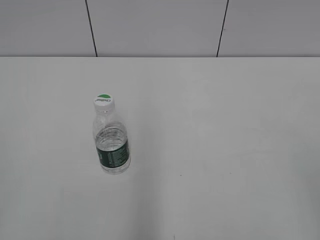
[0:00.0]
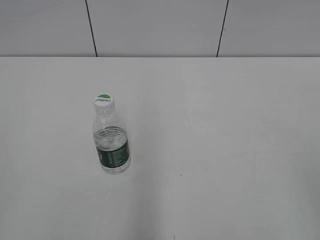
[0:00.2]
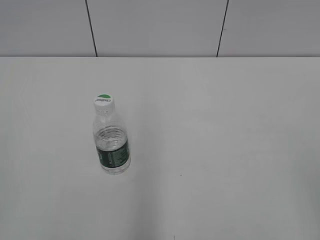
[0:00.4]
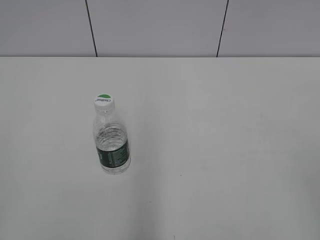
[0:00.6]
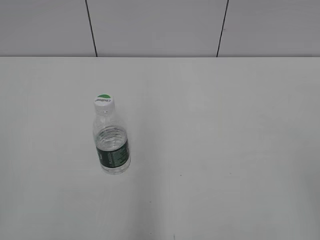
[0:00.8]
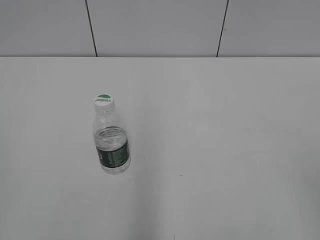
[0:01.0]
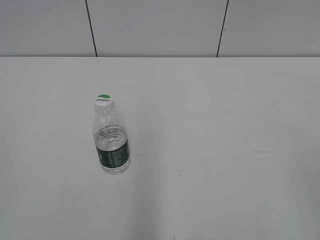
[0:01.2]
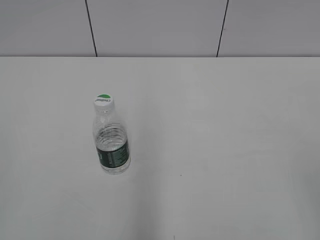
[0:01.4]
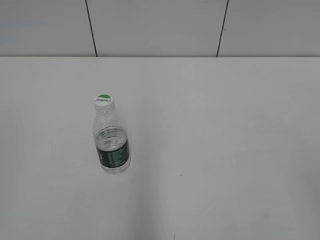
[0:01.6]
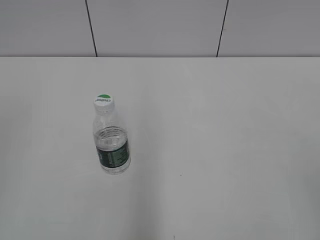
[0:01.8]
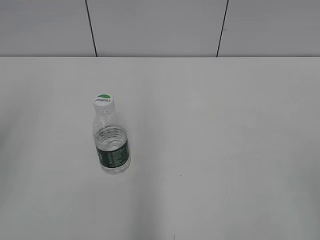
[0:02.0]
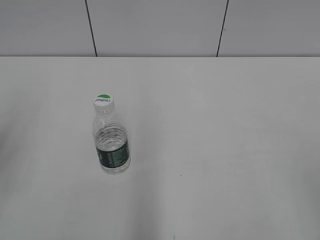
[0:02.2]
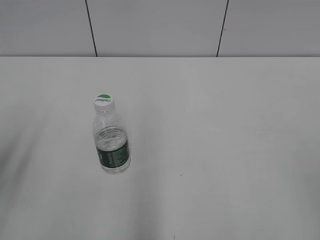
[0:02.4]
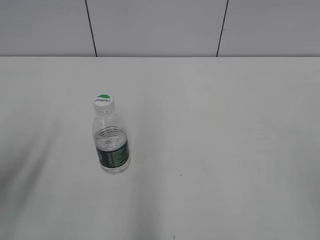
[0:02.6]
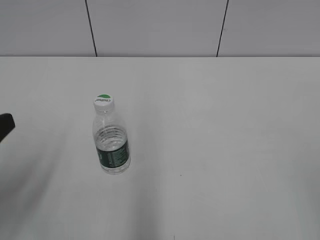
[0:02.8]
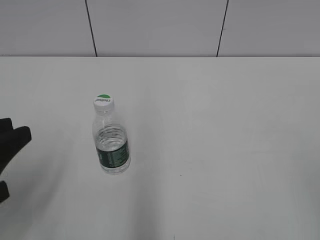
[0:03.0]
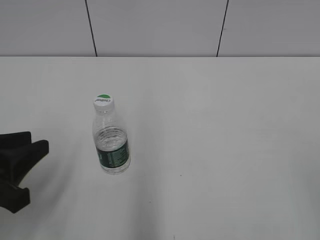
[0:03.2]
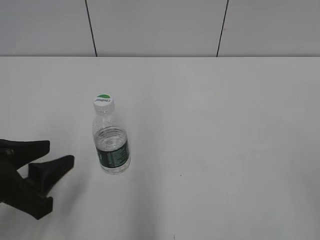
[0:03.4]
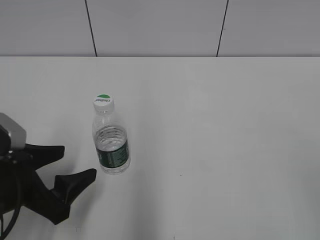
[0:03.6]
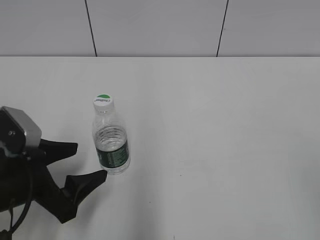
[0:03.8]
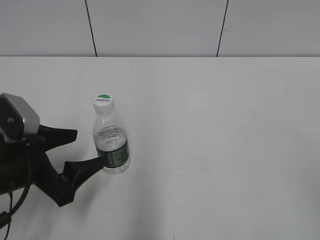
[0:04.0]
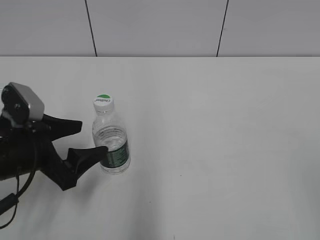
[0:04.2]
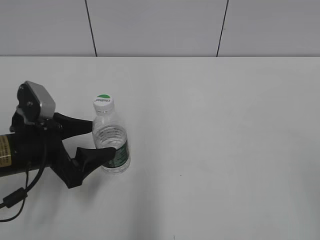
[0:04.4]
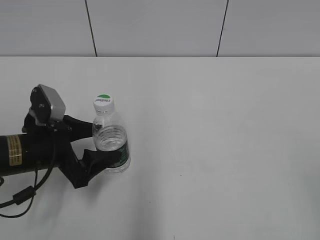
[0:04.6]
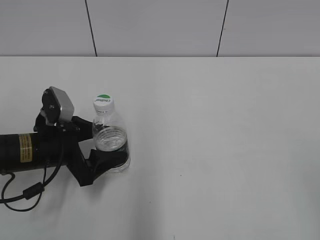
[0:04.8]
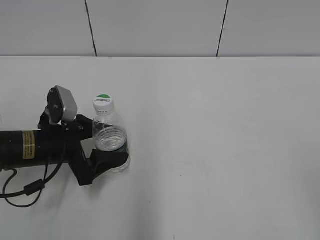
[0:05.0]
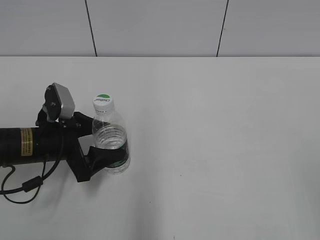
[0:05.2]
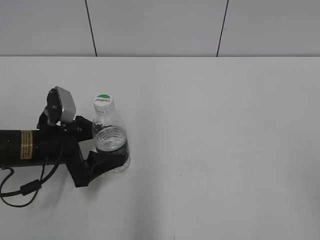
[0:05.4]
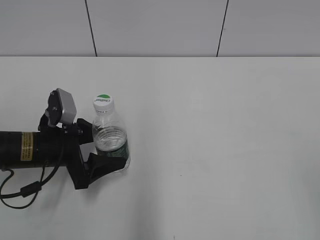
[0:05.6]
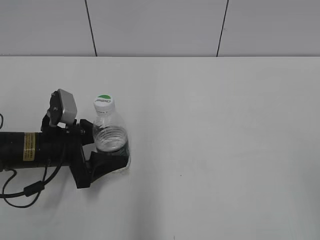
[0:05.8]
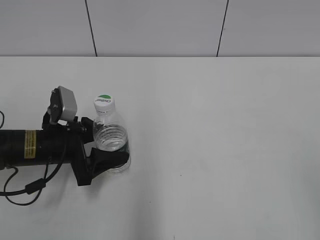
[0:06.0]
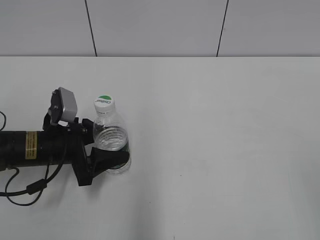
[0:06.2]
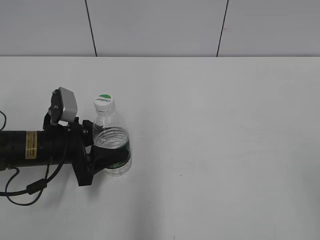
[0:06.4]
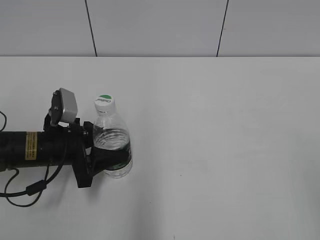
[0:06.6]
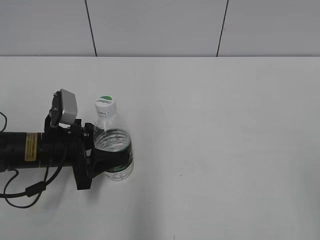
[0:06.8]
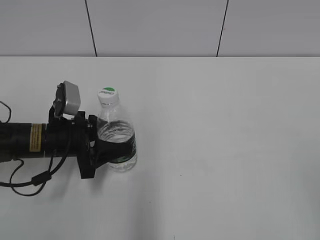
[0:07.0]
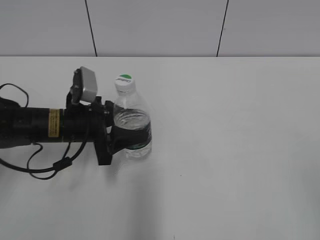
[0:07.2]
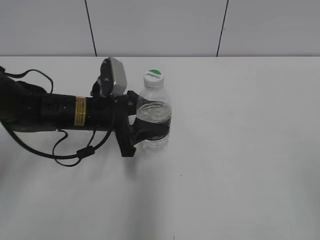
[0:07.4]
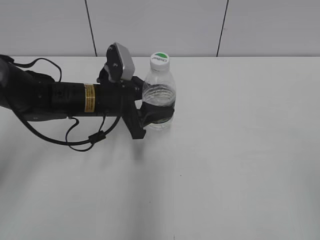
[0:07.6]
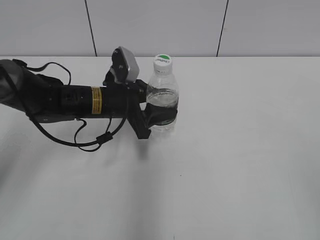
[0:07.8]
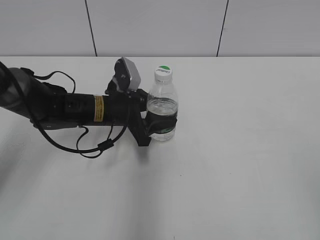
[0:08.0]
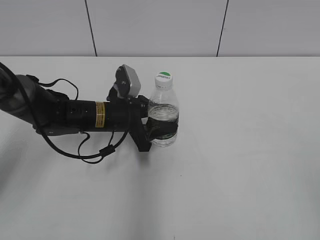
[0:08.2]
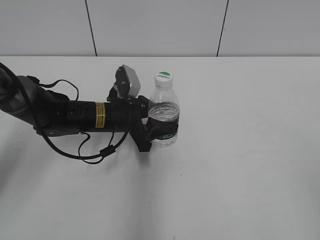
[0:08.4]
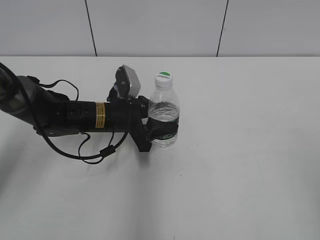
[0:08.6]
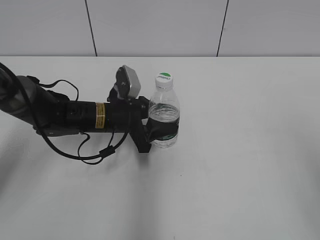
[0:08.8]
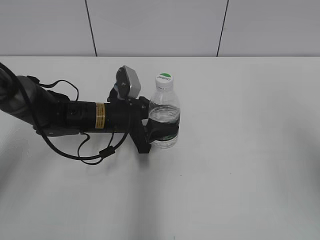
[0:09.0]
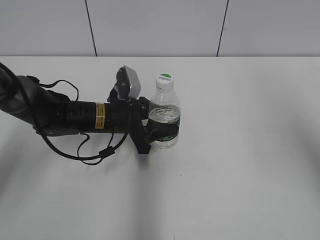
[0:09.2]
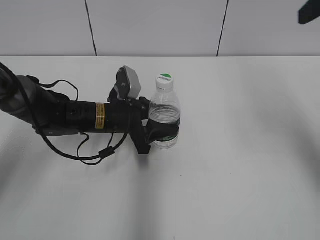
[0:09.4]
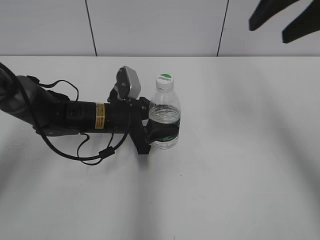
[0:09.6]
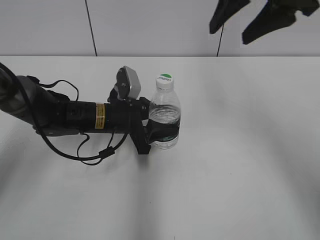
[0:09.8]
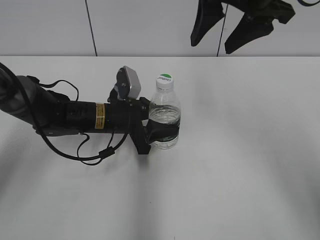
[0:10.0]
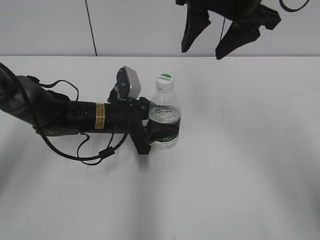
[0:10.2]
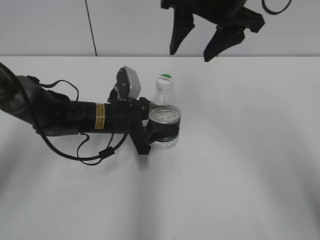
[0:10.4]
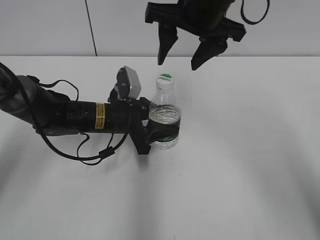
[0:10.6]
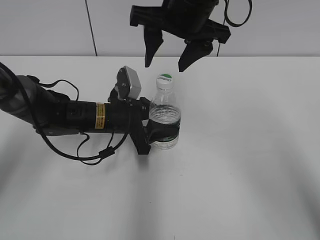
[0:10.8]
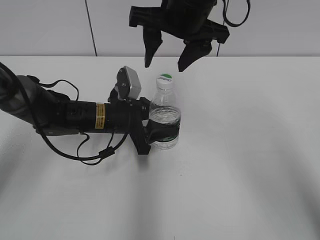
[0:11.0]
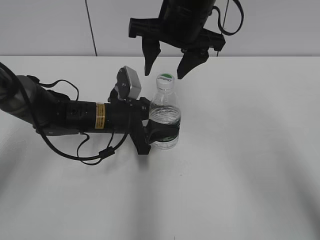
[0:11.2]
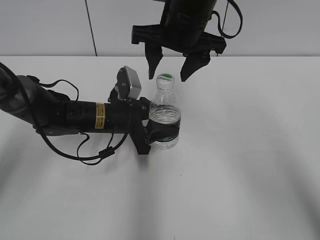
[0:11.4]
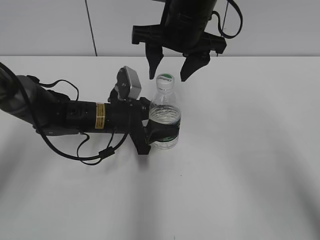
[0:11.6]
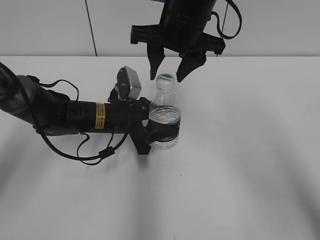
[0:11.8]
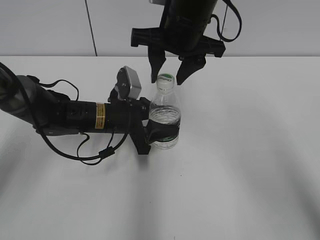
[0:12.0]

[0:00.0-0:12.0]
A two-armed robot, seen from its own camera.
Step, 0:00.0 to 0:06.4: Grasp the bottle and move it to the center of the table with the left gripper.
Step, 0:06.8 to 0:08.6: Lift the bottle and move it to the center of the table with the left gripper.
0:01.6 to 0:03.0: The left gripper moves downward, forward and to the right, some 20 cm.
0:03.0 to 0:04.4: The left gripper shifts roughly 15 cm forward and downward, and opens up.
0:04.4 to 0:06.0: The left gripper ends up approximately 5 cm from where it was.
0:06.0 to 0:07.6: The left gripper moves to the right and forward, approximately 10 cm, and closes up.
0:07.6 to 0:09.0: The left gripper moves approximately 5 cm, while the right gripper moves forward and upward, some 15 cm.
0:09.0 to 0:10.4: The right gripper heads forward and to the left, covering approximately 30 cm.
0:10.4 to 0:12.0: The right gripper heads downward, covering some 5 cm, and closes.

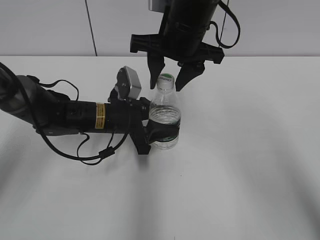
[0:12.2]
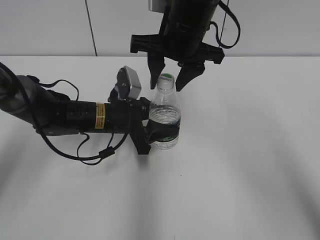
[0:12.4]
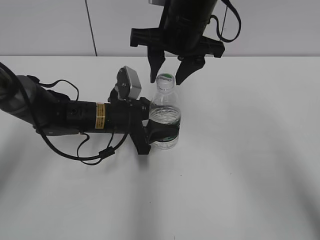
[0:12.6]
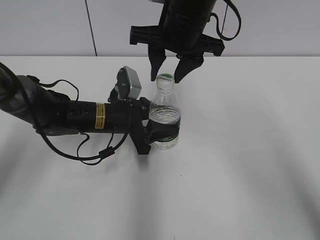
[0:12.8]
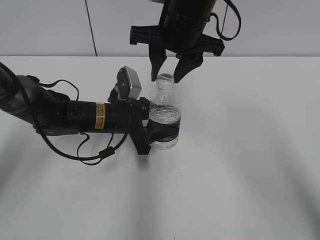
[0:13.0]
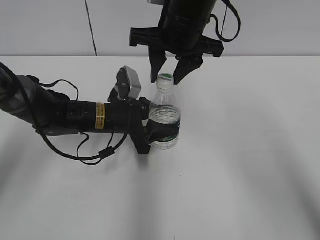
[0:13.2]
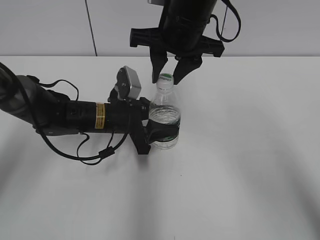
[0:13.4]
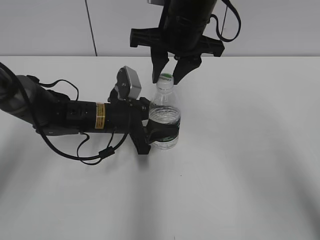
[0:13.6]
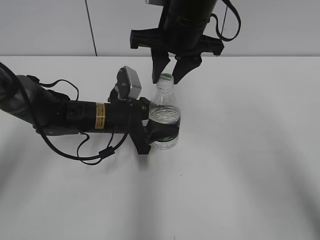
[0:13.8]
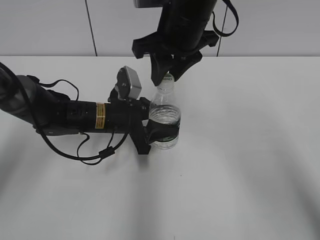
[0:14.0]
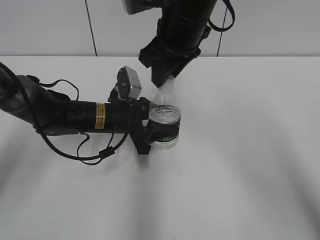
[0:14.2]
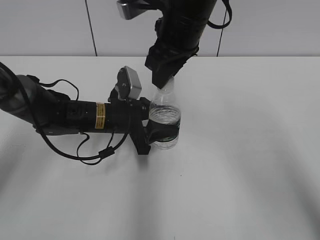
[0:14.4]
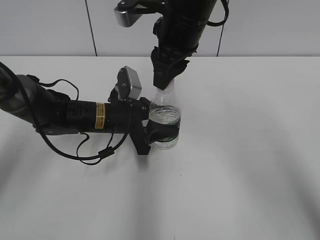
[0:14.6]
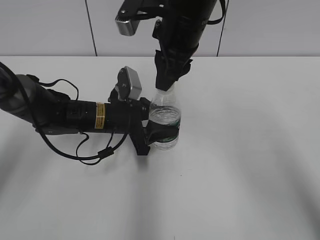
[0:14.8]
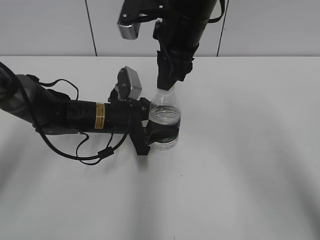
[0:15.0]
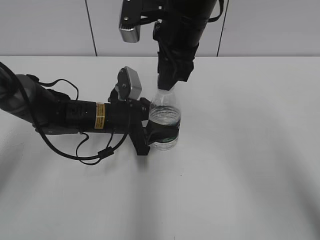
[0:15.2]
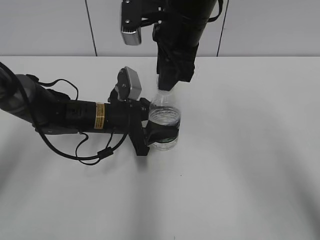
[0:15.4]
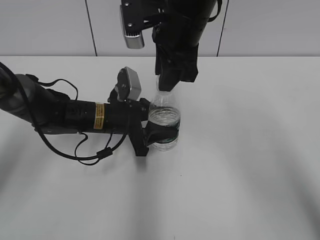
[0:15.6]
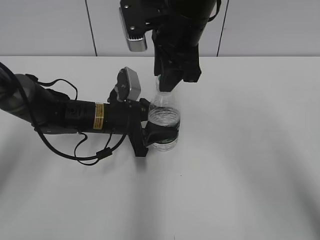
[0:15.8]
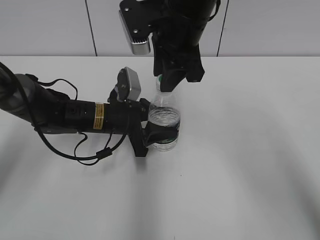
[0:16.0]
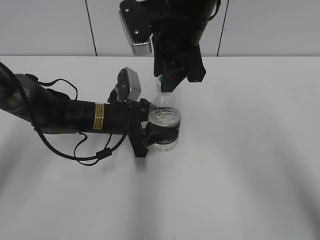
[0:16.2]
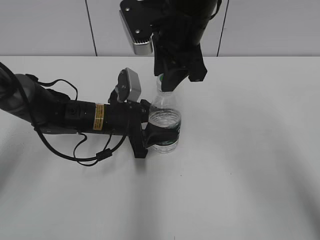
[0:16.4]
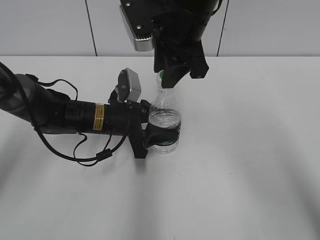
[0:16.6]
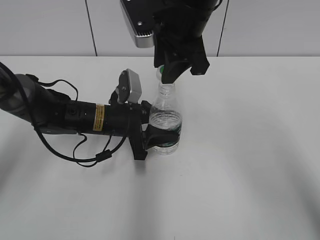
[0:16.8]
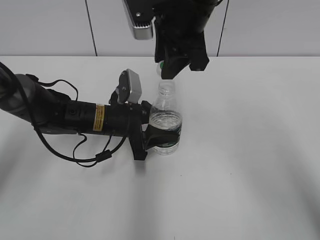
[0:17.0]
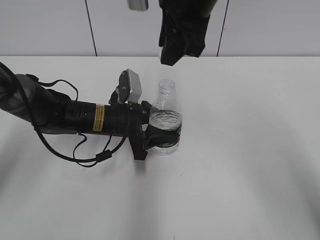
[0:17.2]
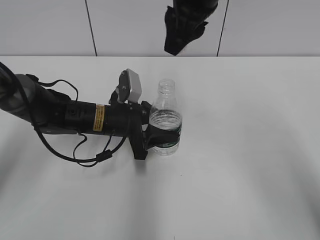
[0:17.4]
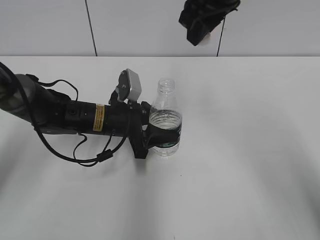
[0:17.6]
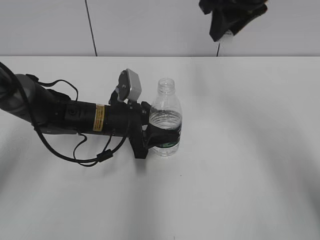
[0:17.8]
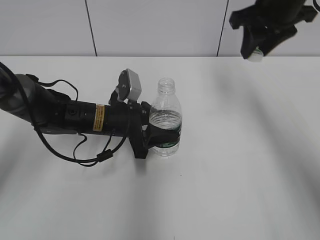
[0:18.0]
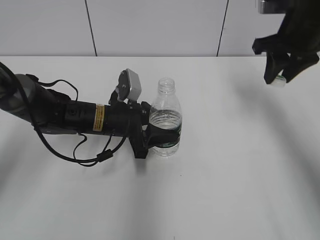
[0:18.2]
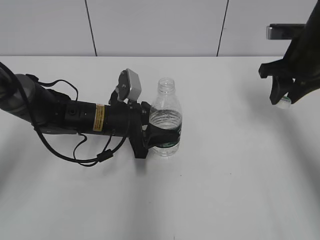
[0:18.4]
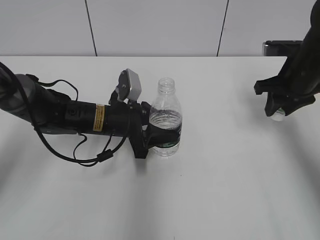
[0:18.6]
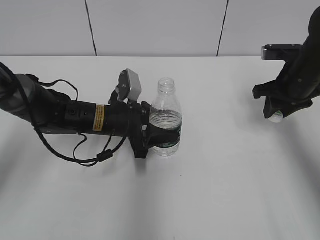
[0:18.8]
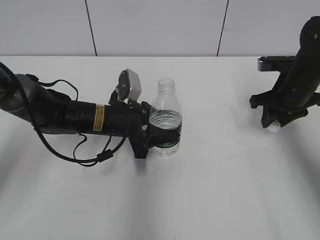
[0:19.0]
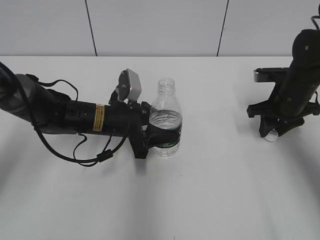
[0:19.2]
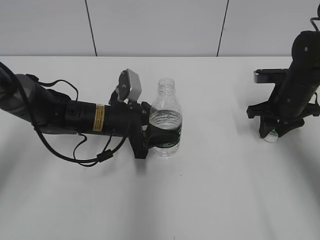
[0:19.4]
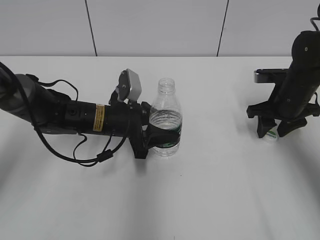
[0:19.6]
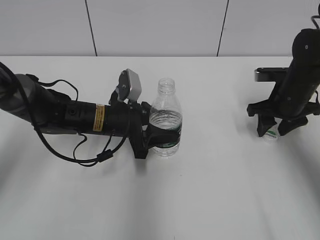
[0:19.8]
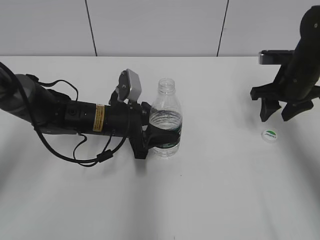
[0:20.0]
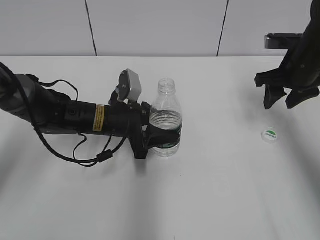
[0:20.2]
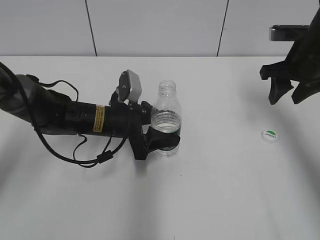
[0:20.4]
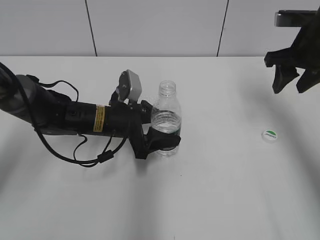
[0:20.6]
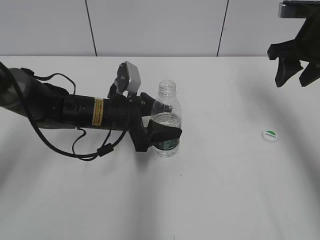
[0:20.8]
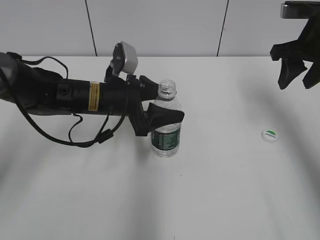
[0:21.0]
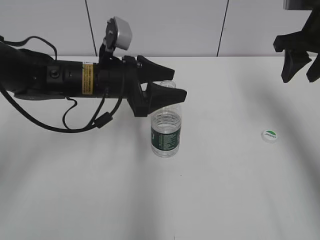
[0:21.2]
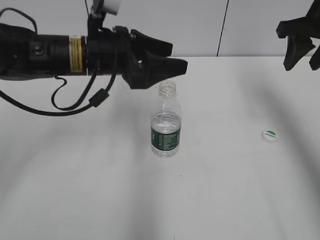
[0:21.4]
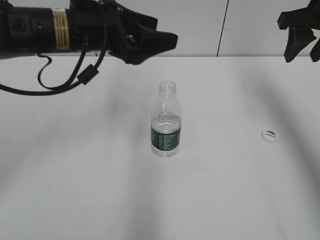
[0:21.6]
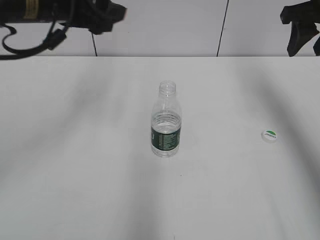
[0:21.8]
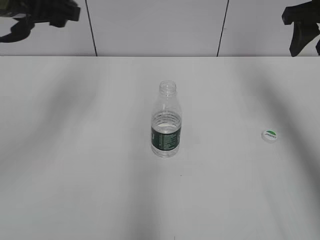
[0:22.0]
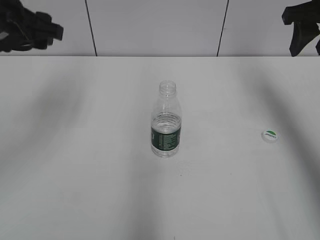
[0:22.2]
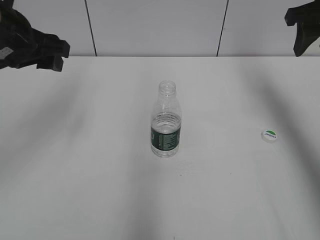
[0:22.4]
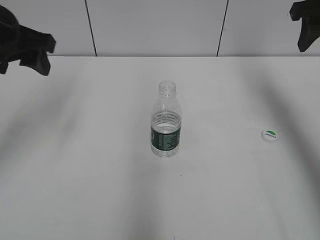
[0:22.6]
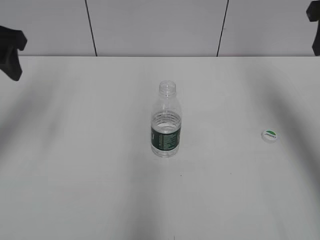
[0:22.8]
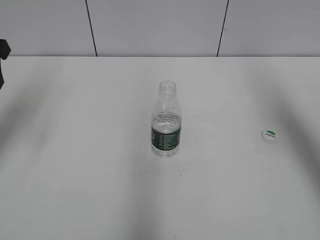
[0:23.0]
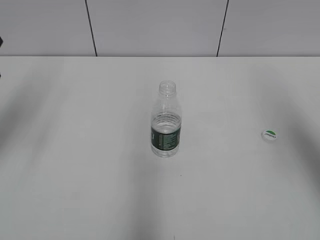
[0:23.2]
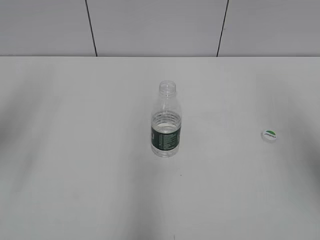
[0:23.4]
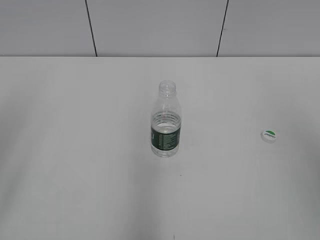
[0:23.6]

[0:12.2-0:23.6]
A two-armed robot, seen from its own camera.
Step, 0:12.2 to 0:17.4: Unscrew the bottle cap with the right gripper while holding the bottle with the left gripper.
Step, 0:17.6 to 0:20.0: Place the bottle cap on the table with the right gripper.
Step, 0:20.2 to 0:21.8: Place the bottle on the table with the left gripper.
0:12.2 to 0:13.6: The right gripper closes up.
0:16.4 to 0:17.8: The right gripper moves to the right and upward, about 10 cm.
0:17.8 to 0:19.4: The right gripper moves downward and to the right, roughly 25 cm.
0:19.4 to 0:20.8: The right gripper is displaced upward by roughly 15 cm, and opens; the left gripper opens.
0:20.8 to 0:22.2: The right gripper is displaced upward by about 5 cm; the left gripper is displaced upward and to the left by about 25 cm.
0:22.2 to 0:23.6: The left gripper travels backward and to the left by some 20 cm. The right gripper moves backward, roughly 30 cm.
